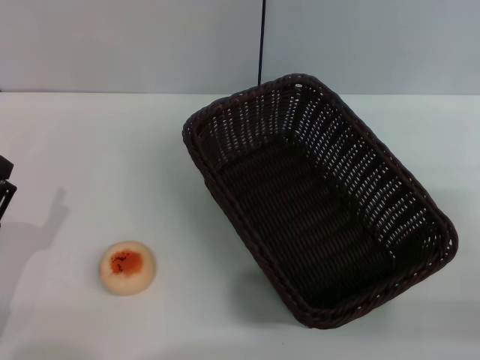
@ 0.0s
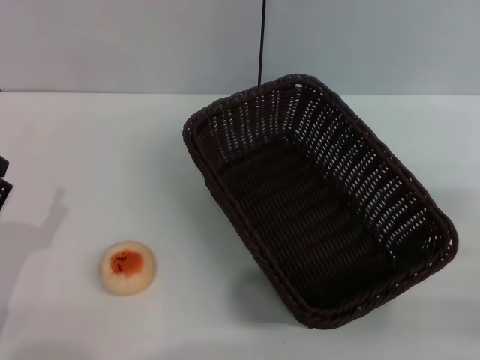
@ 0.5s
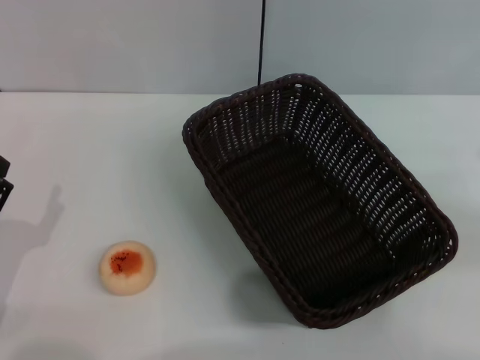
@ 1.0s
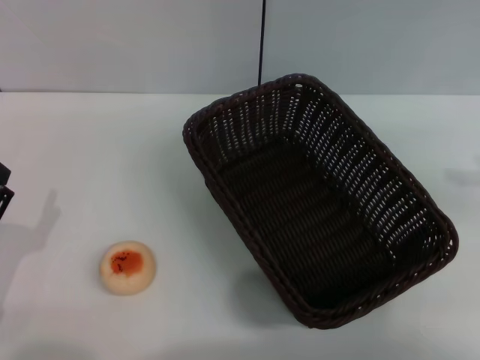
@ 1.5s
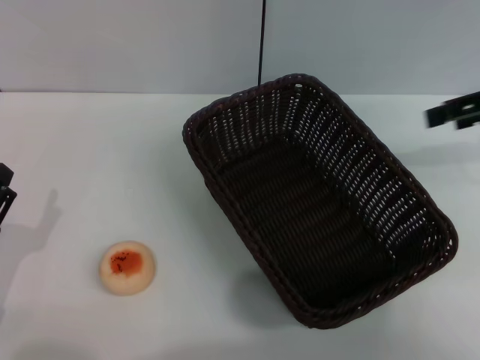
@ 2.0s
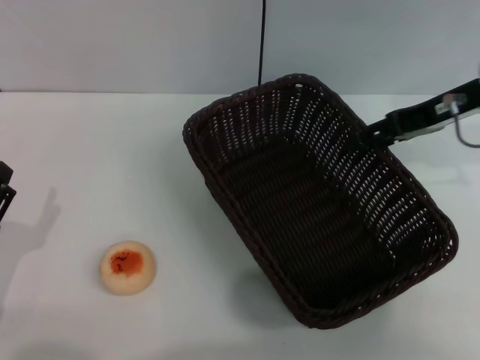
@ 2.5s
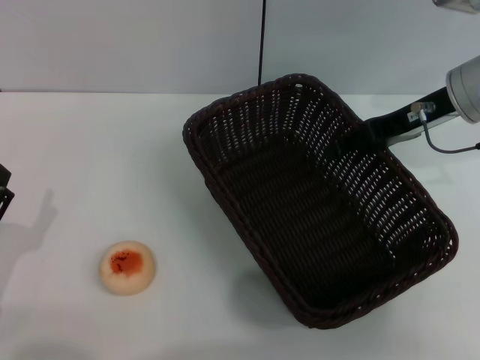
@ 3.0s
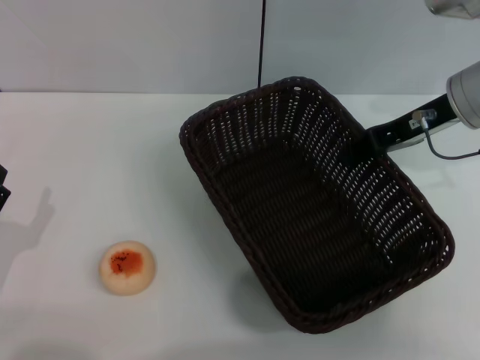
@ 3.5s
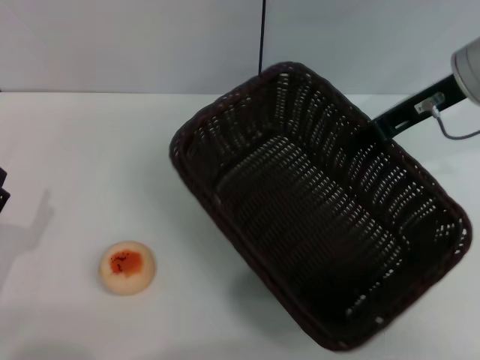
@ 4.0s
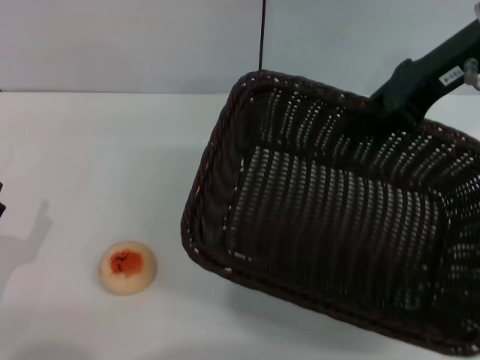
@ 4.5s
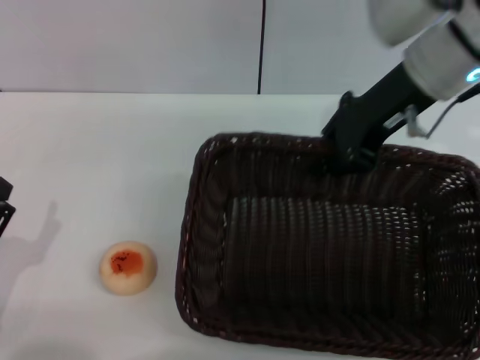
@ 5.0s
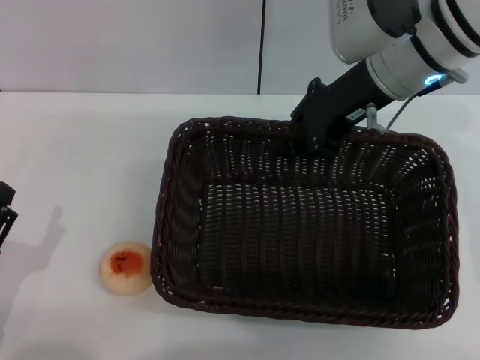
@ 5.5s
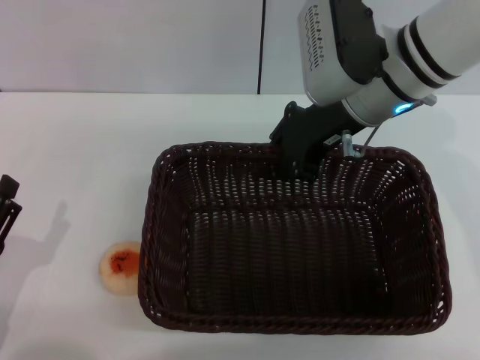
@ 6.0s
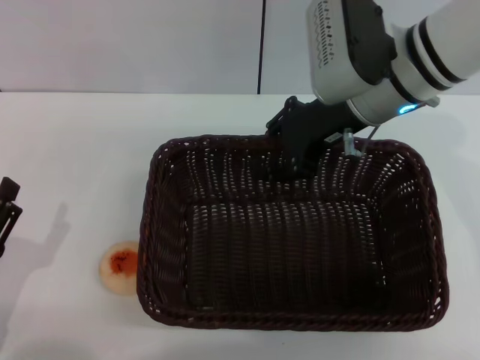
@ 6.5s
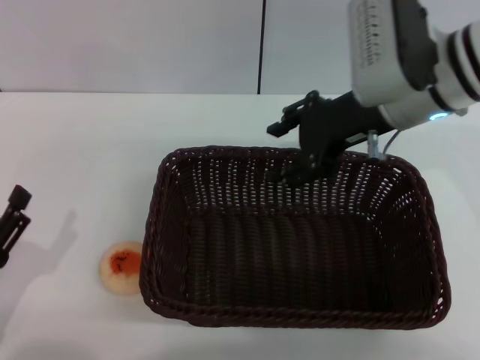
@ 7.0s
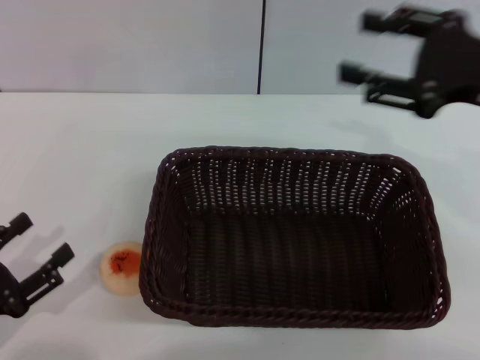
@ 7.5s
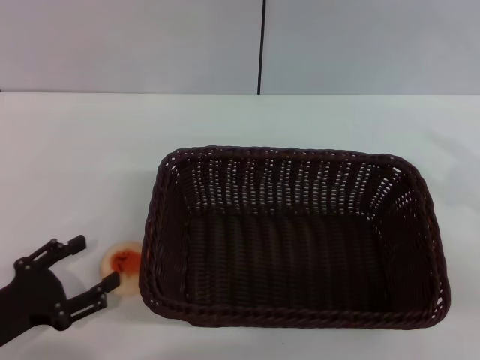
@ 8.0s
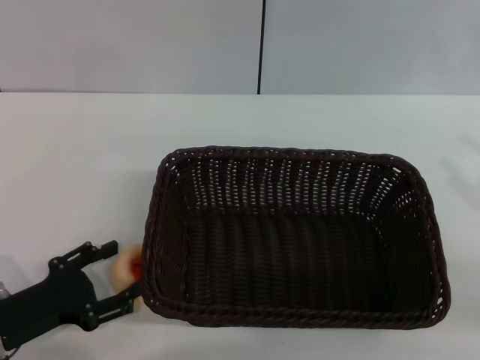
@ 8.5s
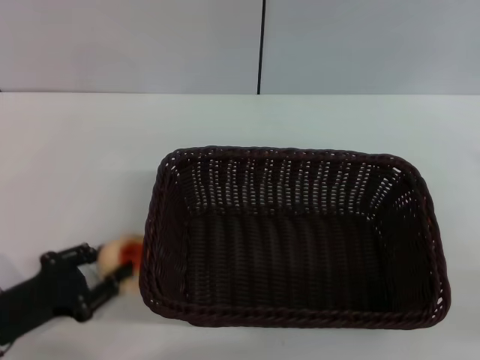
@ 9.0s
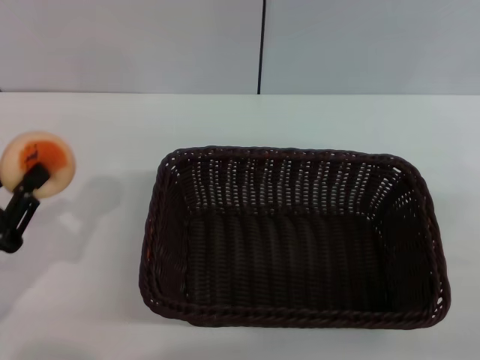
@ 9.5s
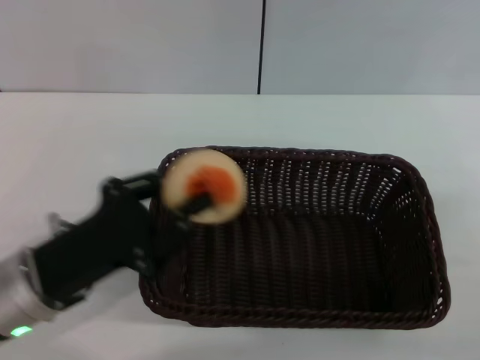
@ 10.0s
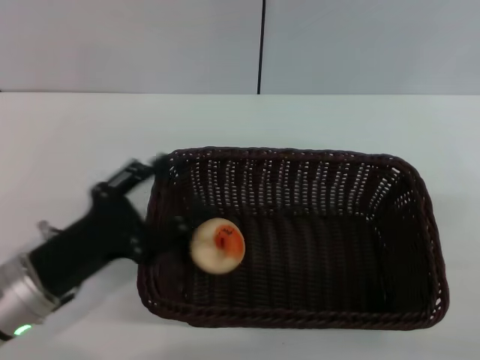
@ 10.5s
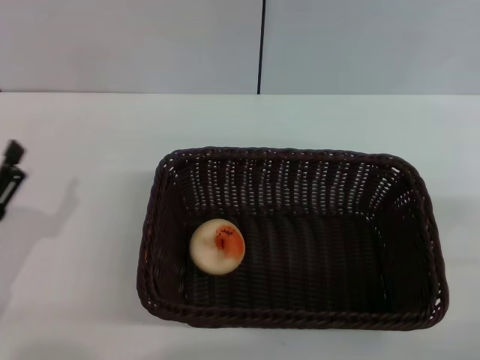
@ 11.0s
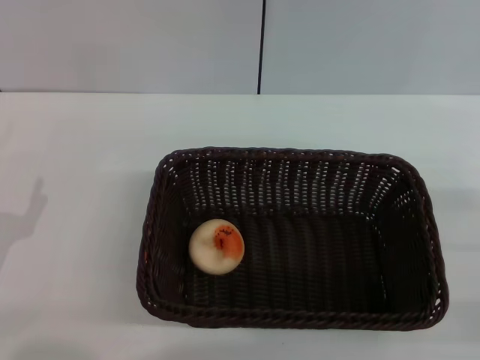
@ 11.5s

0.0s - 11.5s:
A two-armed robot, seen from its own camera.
Step, 0.0s - 7.0s: Move the basket to the center of view with the right gripper.
Step, 7.5s - 9.0s: Pick up the egg yolk pastry with the left gripper.
Step, 9.5s - 10.5s: Place the egg yolk pastry into the basket with the left gripper.
0.0s - 2.0s: The right gripper is displaced forward and upward by roughly 25 cm.
2.0s - 4.0s: The right gripper is displaced to the left by roughly 10 cm, and closes.
4.0s - 6.0s: The right gripper heads to the left, covering approximately 10 cm.
6.0s - 7.5s: The right gripper heads to the right and backward, covering roughly 20 cm, and opens.
7.5s - 9.5s: The left gripper closes its fingers. Meanwhile the right gripper heads downward, to the right and backward, covering some 15 cm.
9.5s - 11.5s: The left gripper travels to the right and back again, some 10 cm each way, and opens its fingers.

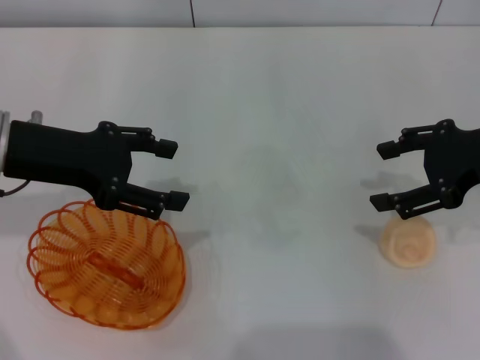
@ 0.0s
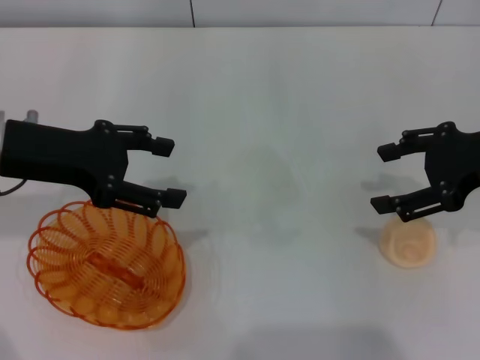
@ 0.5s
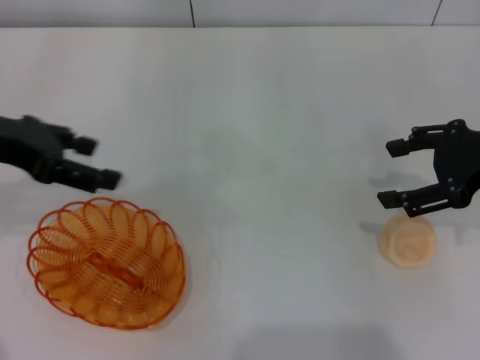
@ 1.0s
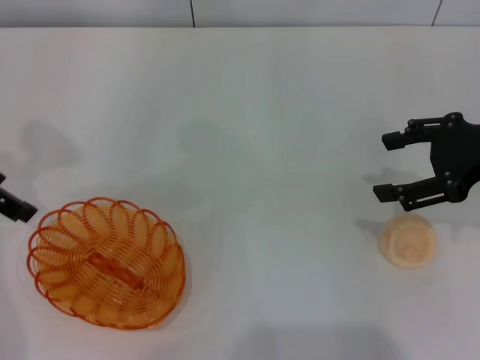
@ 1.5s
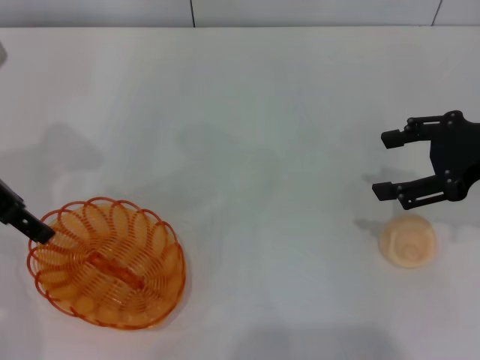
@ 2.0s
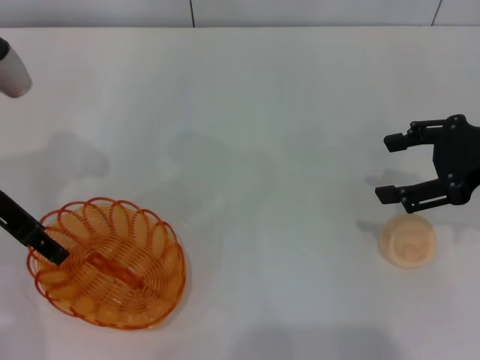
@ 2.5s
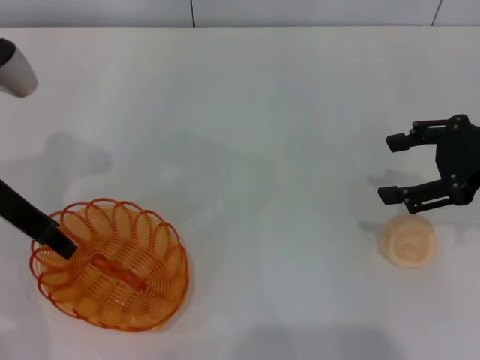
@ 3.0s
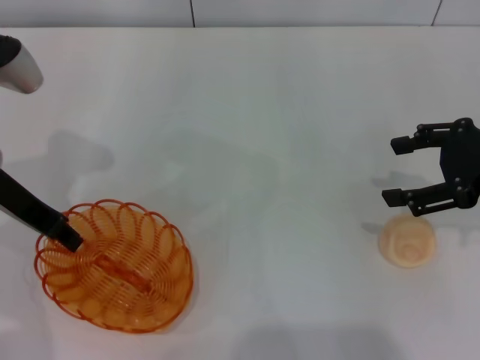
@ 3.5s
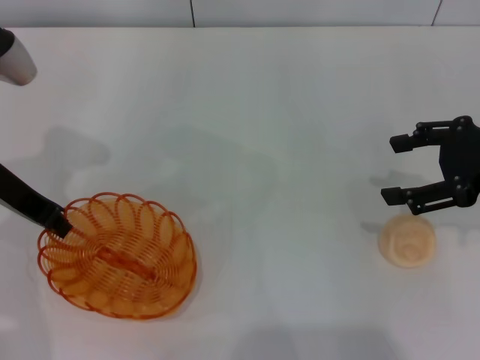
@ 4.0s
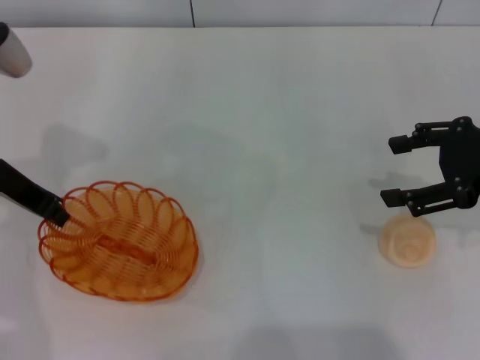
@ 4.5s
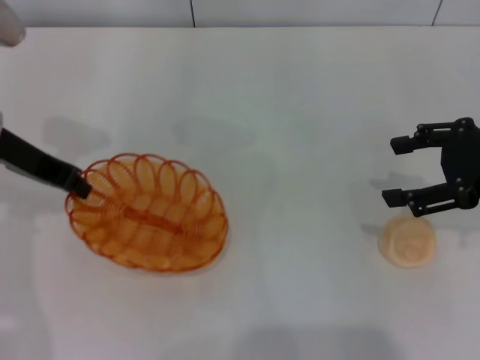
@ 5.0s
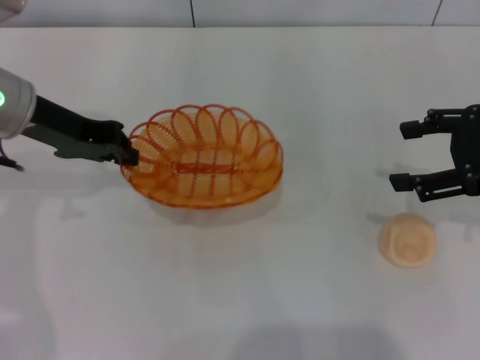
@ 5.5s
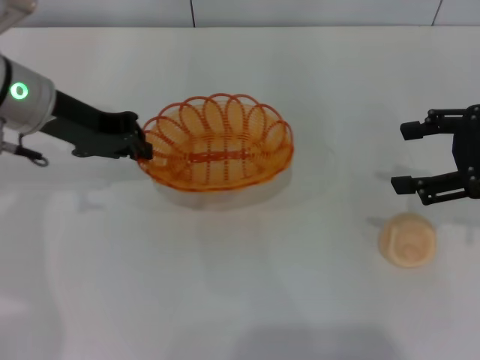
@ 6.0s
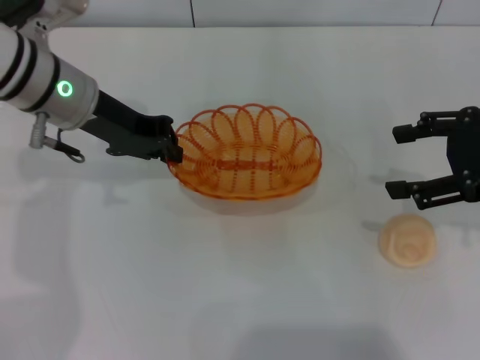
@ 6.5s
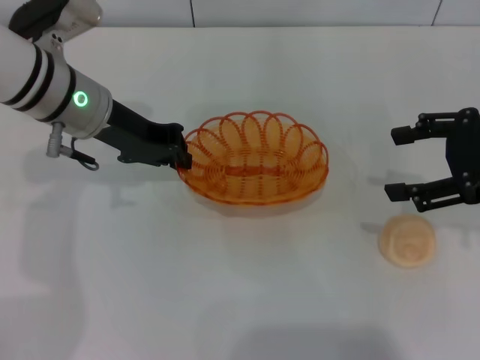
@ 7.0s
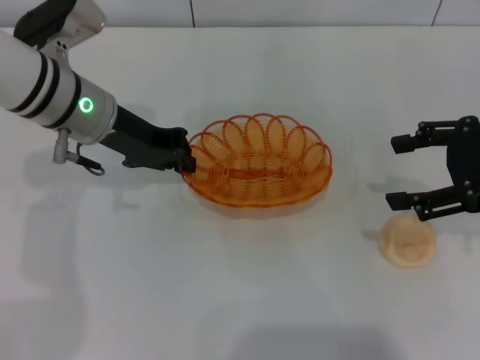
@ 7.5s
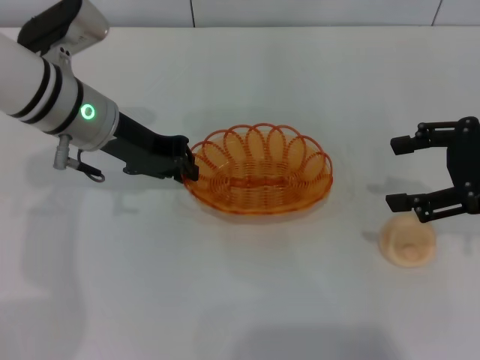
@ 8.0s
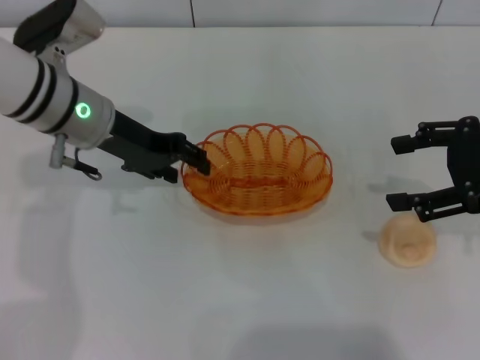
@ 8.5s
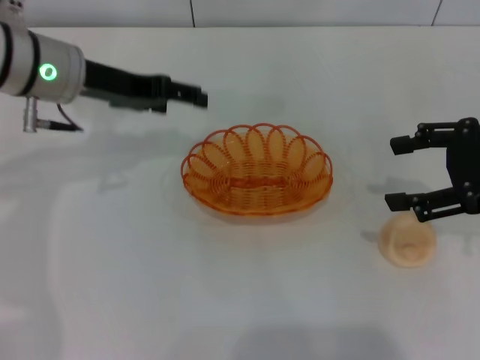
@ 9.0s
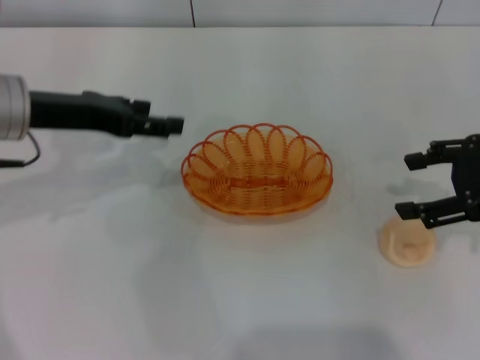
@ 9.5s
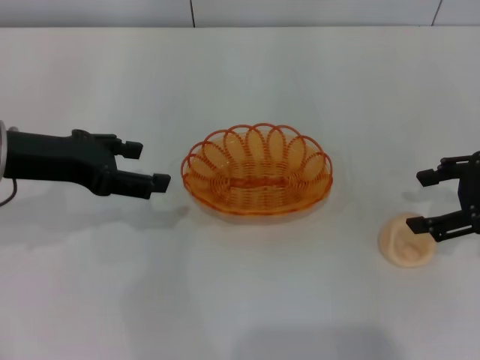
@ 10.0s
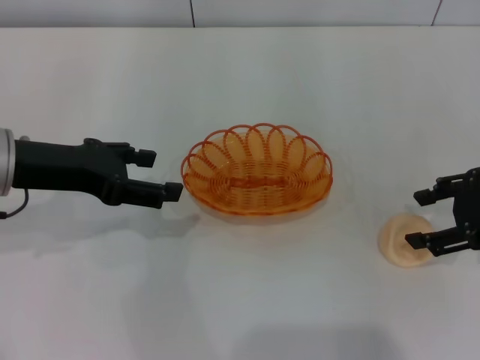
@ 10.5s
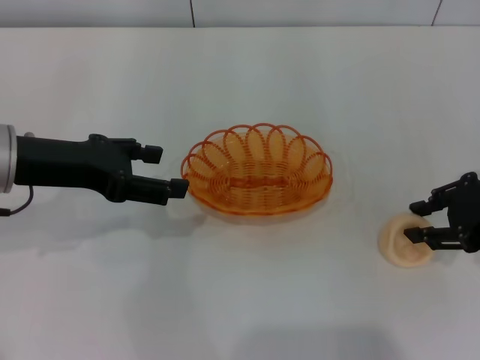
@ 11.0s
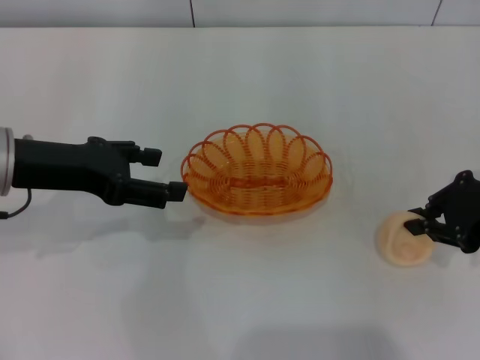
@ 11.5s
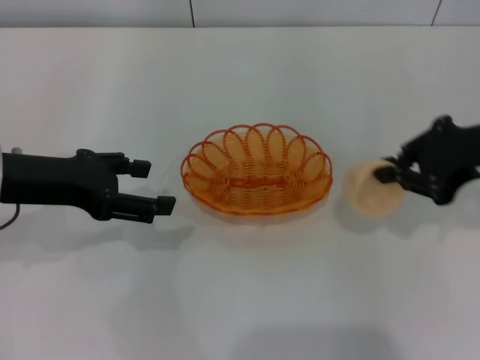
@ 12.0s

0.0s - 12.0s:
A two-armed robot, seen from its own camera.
Step, 0.0s - 5.0s: Pick up the basket with the left gripper.
Step, 5.5s - 9.0s: Place the basket in the center of view with the left gripper.
Step, 9.5s - 11.5s: Pick up the egg yolk pastry with the right gripper.
2.0s - 4.0s: The left gripper closes.
4.0s - 6.0s: The left gripper changes place by roughly 5 cm.
6.0s - 8.0s: The left gripper moves approximately 5 cm.
8.0s - 10.0s: The left gripper heads to the left and backward, covering about 10 cm, and opens up.
10.0s - 12.0s: The right gripper ends up about 5 cm from where it was, and closes up.

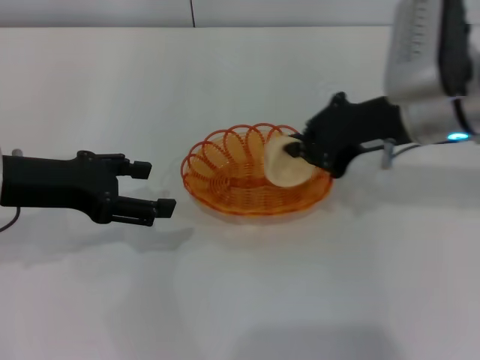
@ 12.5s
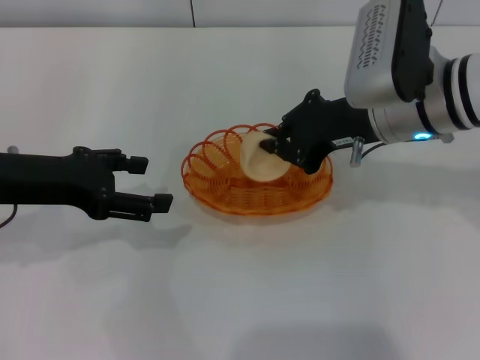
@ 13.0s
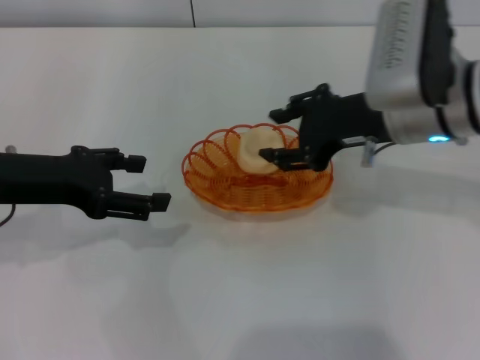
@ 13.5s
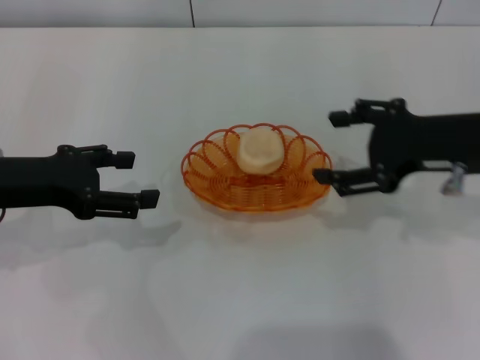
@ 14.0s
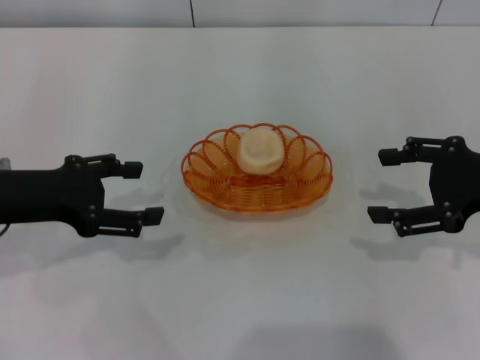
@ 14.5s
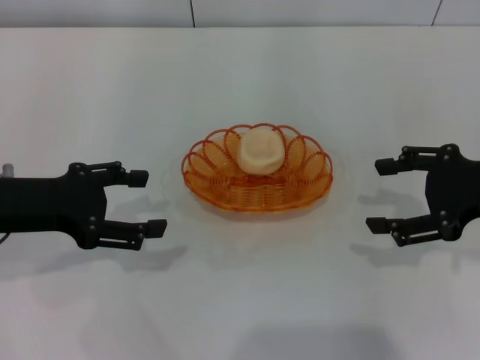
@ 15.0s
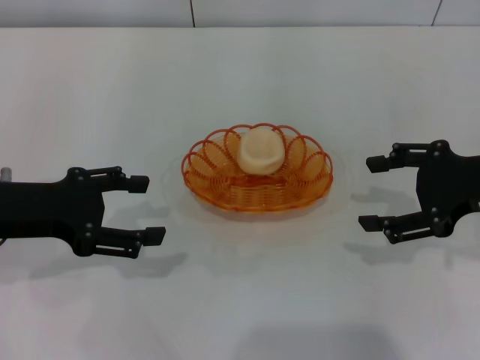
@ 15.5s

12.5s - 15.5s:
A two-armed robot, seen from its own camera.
Step, 12.5s - 13.5s: Place the egg yolk pastry into the basket with the right gripper.
12.5s - 14.0s: The right gripper goes about 5 cm to the right, and opens up.
14.0s - 15.5s: There are only small adjustments of the grippers.
